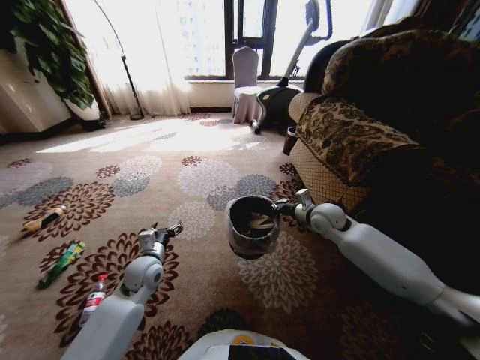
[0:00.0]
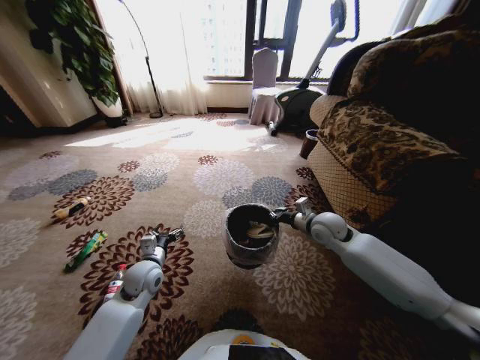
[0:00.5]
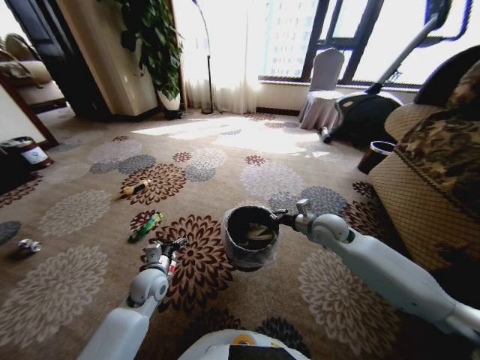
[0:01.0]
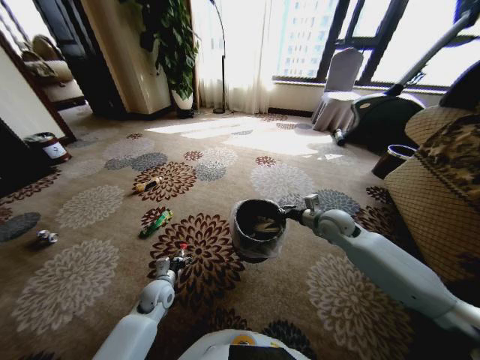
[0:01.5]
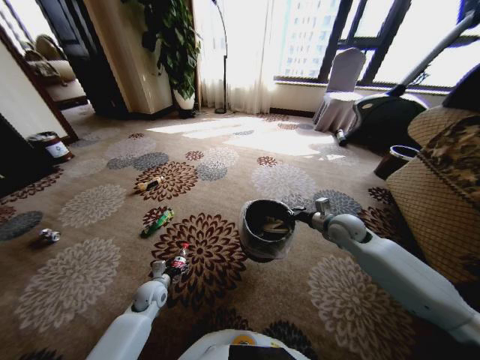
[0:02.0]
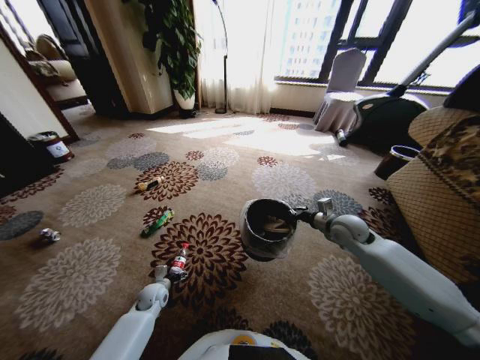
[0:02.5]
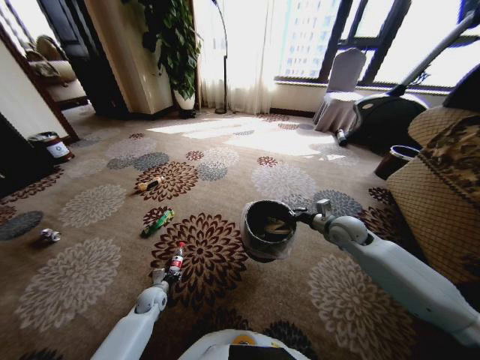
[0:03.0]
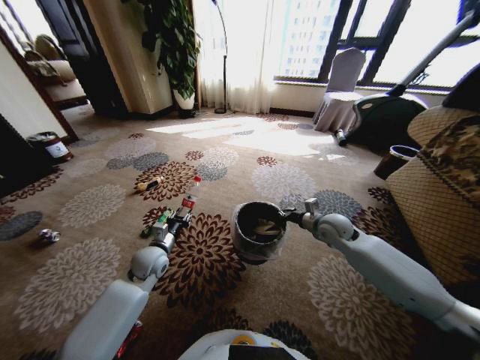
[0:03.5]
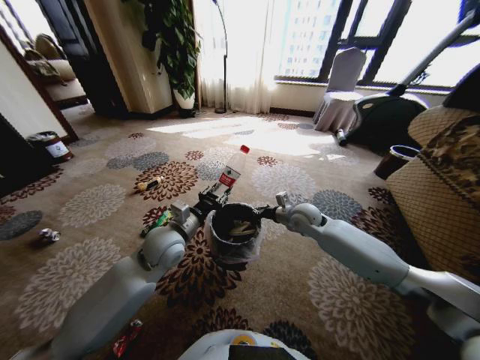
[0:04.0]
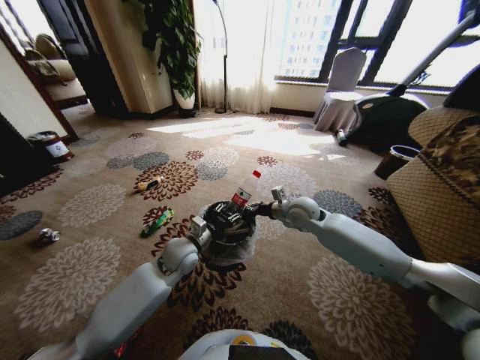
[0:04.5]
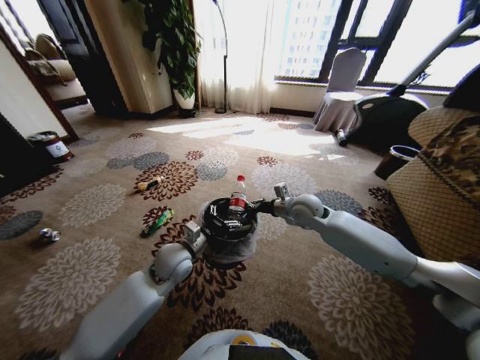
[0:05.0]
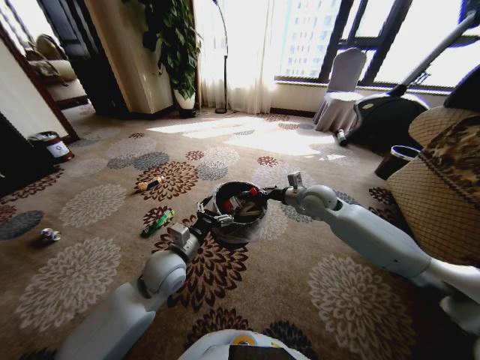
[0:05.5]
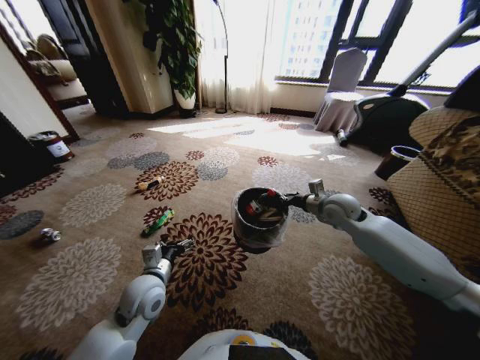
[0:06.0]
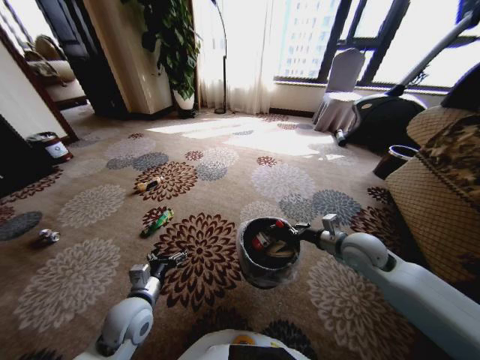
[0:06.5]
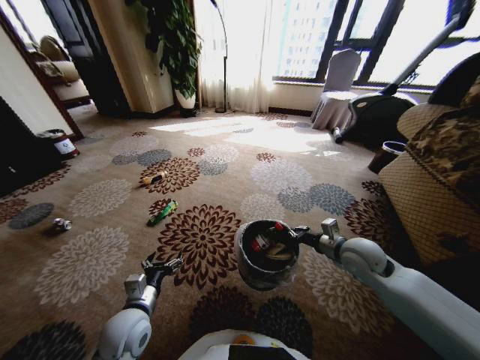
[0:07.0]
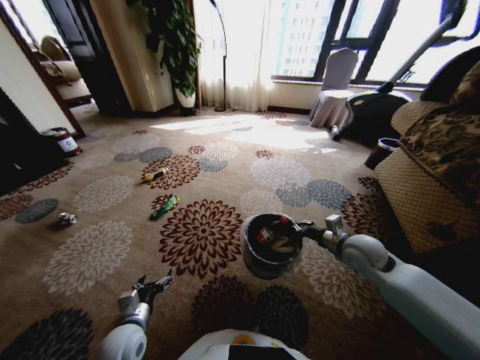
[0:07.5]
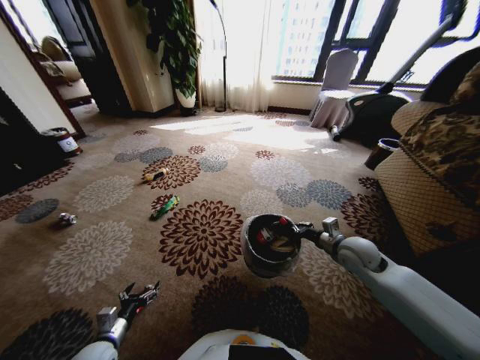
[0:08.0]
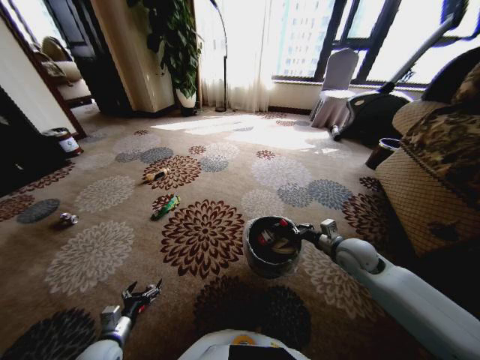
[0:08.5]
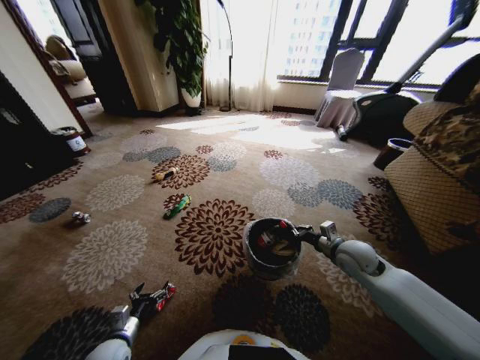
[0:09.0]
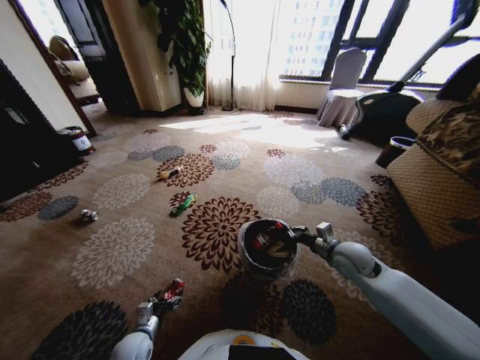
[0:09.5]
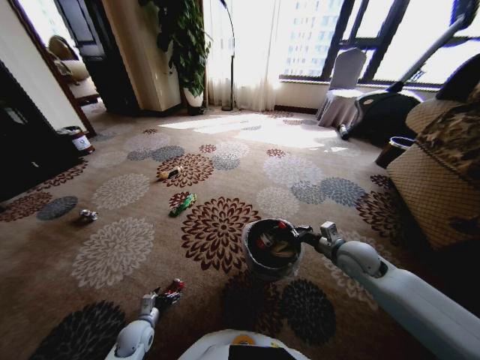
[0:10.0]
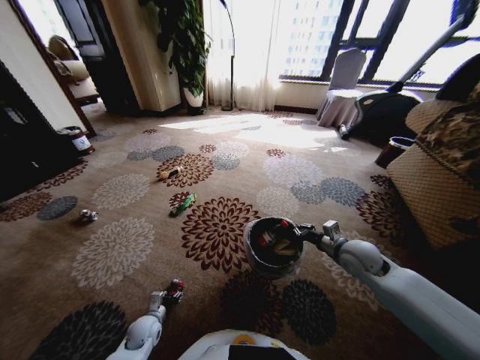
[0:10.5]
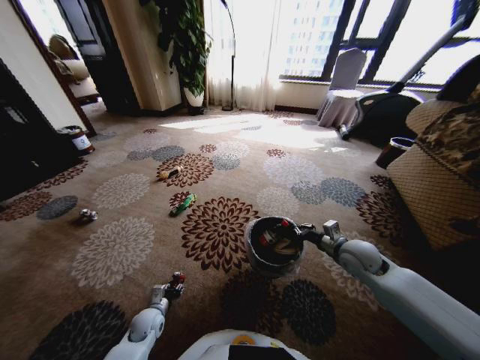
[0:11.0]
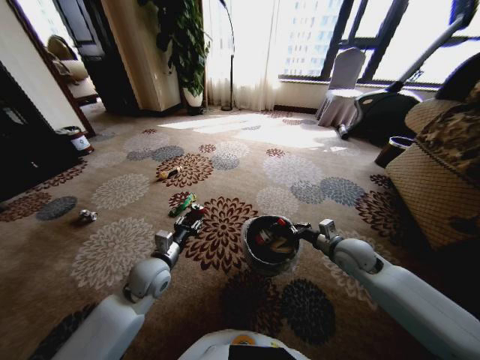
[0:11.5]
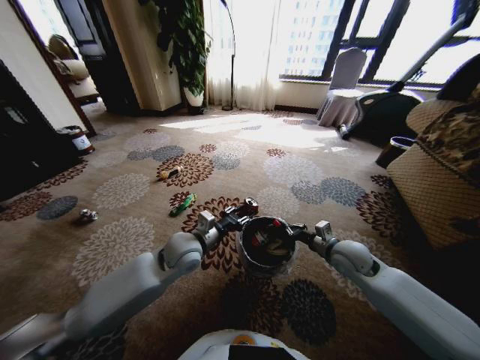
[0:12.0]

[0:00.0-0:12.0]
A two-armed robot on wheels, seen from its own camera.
Task of the whole recording: Pick up the trash from the ground and place it into the trash bin.
0:00.0 to 0:02.0: The left gripper shifts about 15 cm downward. Meanwhile the right gripper moves to the right, about 5 cm.
0:02.0 to 0:04.0: The right gripper is displaced to the left by roughly 10 cm. Meanwhile the left gripper travels upward by roughly 25 cm, and closes up.
0:04.0 to 0:06.0: The right gripper travels to the right and upward by about 10 cm. Meanwhile the left gripper shifts some 10 cm downward and backward, and opens.
0:06.0 to 0:08.0: The right gripper travels backward and downward by some 15 cm; the left gripper travels downward, to the left and backward by roughly 25 cm.
0:08.0 to 0:10.0: The left gripper heads downward and forward, covering approximately 10 cm.
0:10.0 to 0:12.0: The left gripper shifts about 35 cm upward, to the right and forward, and closes its fingers.

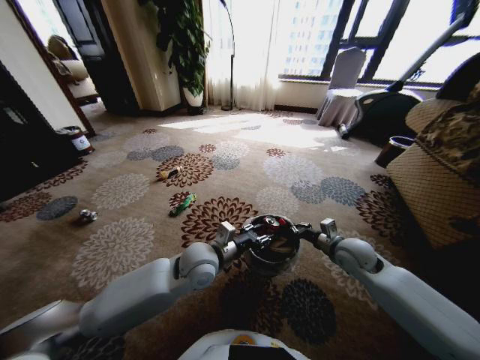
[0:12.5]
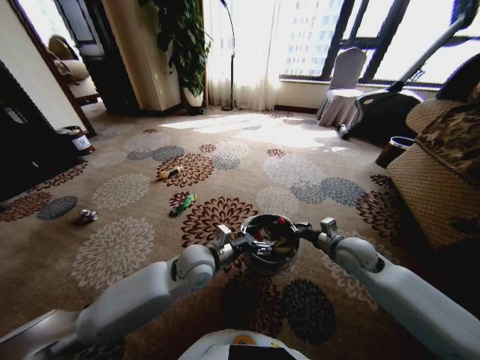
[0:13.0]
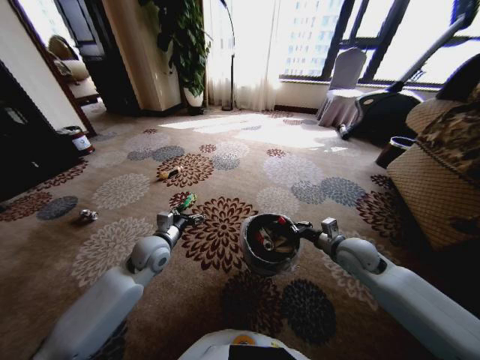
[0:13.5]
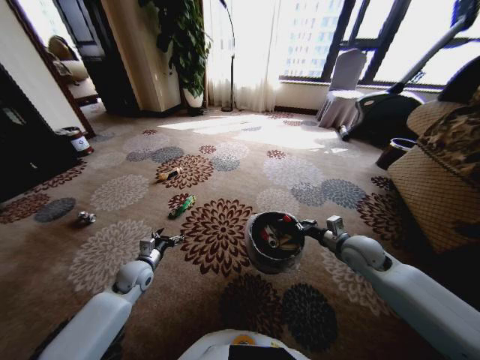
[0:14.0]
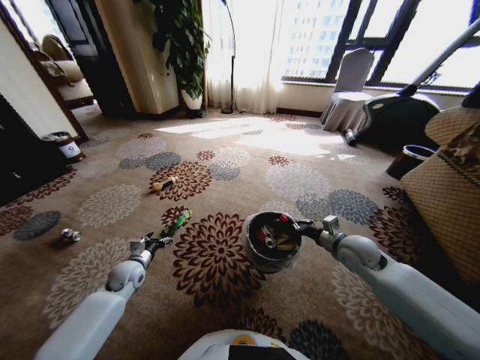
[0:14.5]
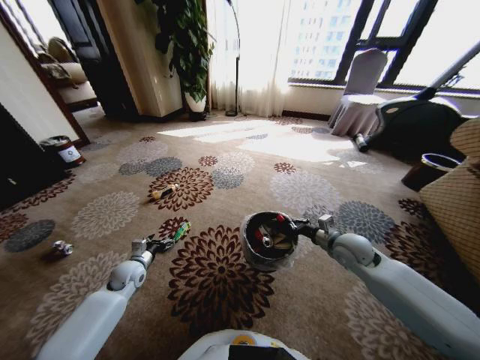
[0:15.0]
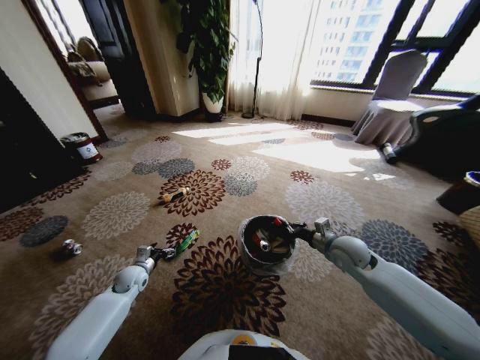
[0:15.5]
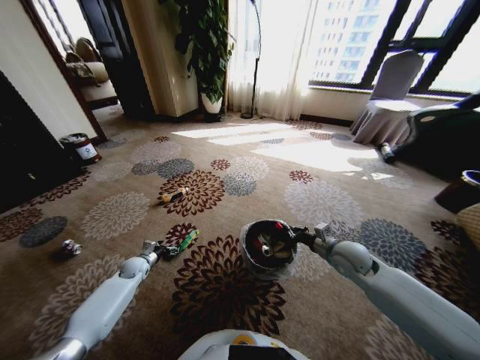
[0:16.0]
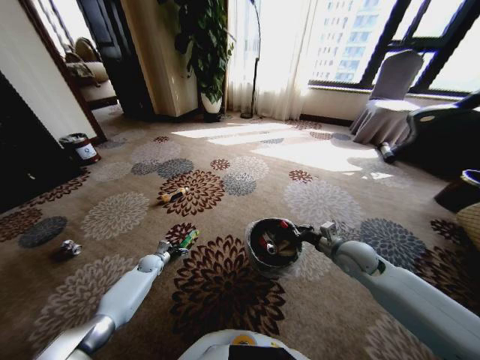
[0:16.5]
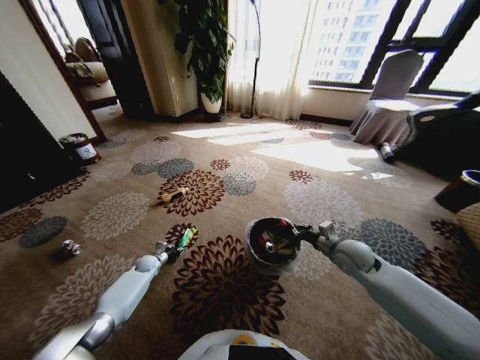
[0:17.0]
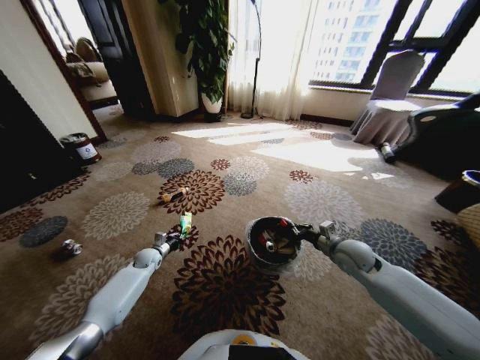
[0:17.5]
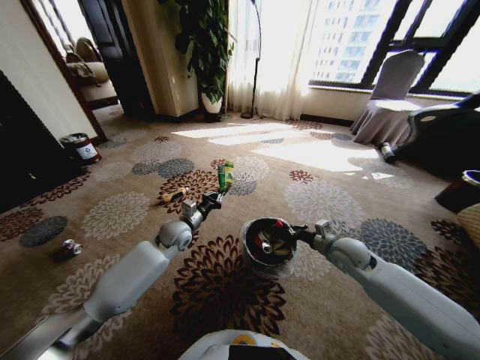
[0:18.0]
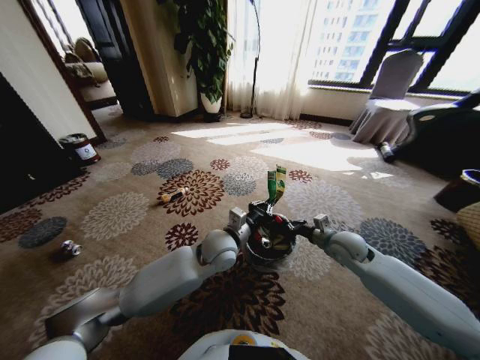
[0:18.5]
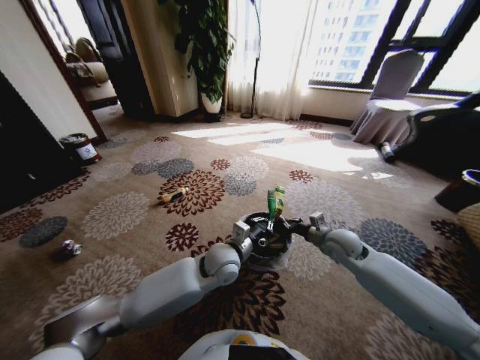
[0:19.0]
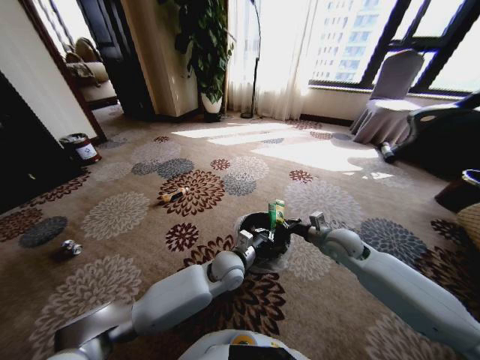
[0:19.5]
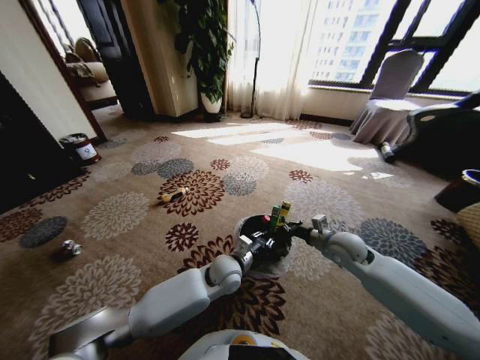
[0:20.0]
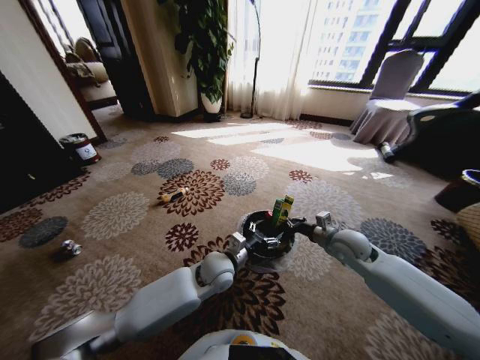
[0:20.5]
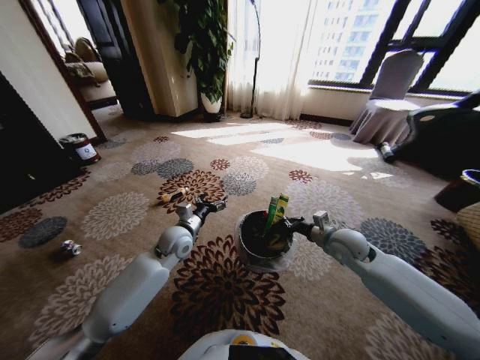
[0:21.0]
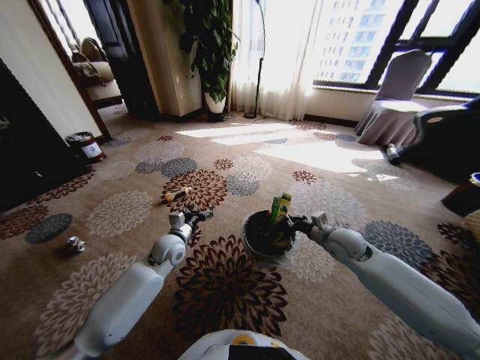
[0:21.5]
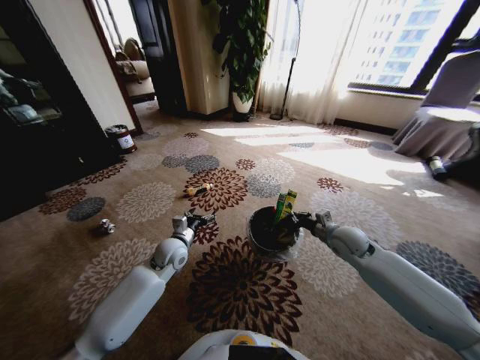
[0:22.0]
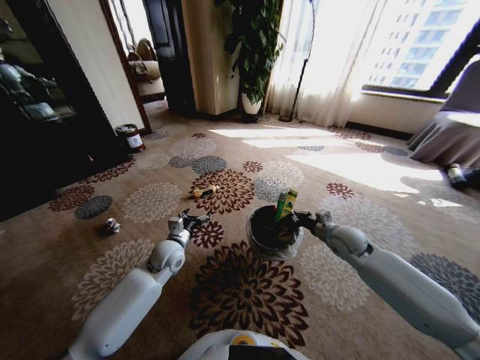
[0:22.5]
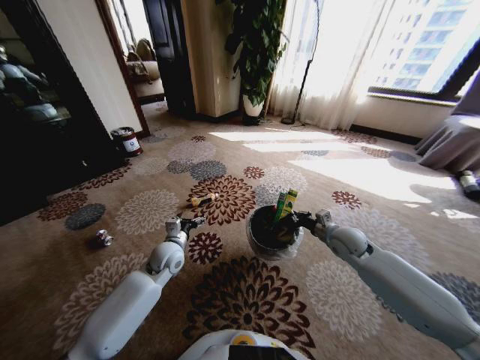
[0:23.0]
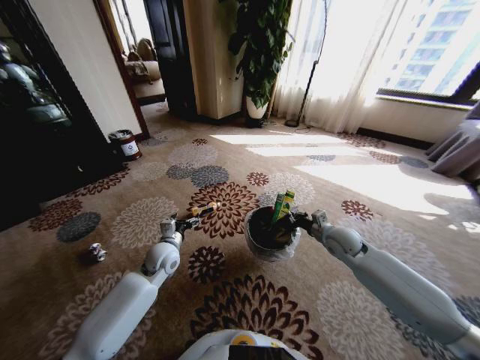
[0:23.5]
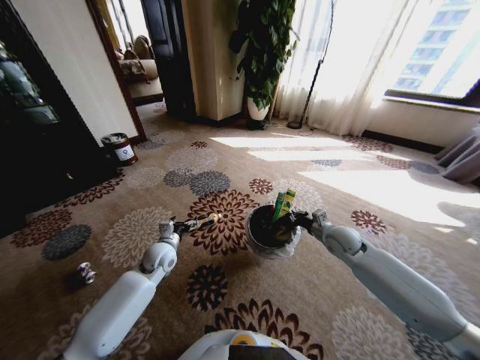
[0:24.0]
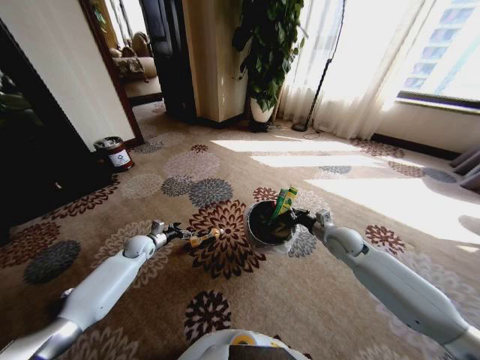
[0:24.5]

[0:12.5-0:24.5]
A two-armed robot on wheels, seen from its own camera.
Task of the whole recording: Pick up the trash from the ground and place it into the trash bin.
0:12.5 to 0:14.5: The left gripper moves to the left and downward, approximately 30 cm, and opens.
0:14.5 to 0:16.5: The left gripper shifts approximately 15 cm downward and forward.
0:16.5 to 0:18.5: The left gripper travels to the right and upward by approximately 40 cm, and closes.
0:18.5 to 0:20.5: The left gripper goes some 5 cm downward, and opens its fingers.
0:20.5 to 0:22.5: The left gripper is displaced to the left by about 15 cm.
0:22.5 to 0:24.5: The left gripper moves to the left, downward and forward, roughly 20 cm.

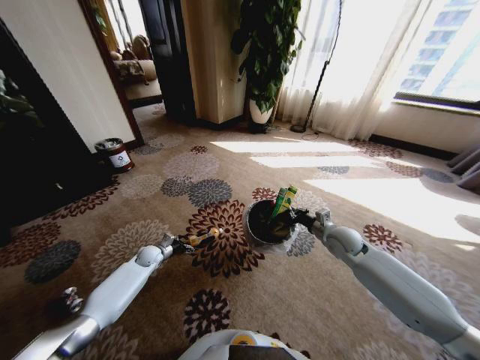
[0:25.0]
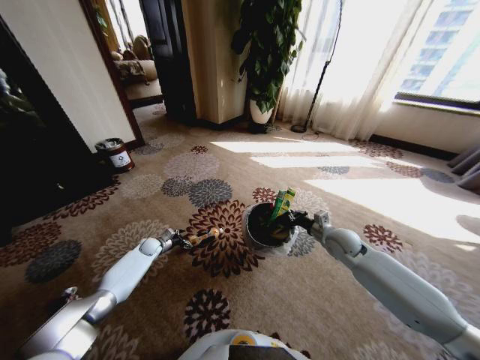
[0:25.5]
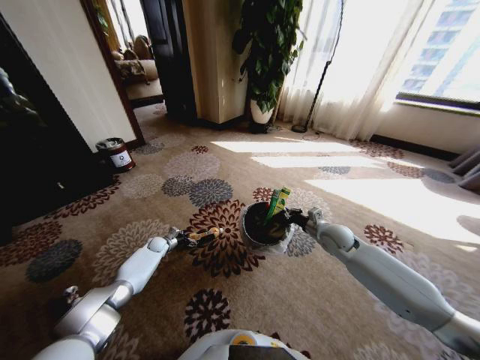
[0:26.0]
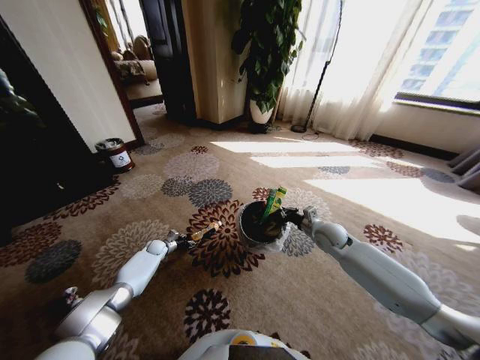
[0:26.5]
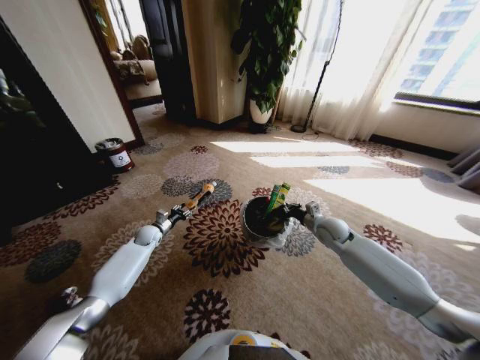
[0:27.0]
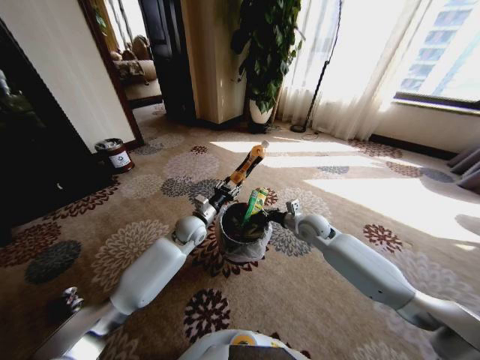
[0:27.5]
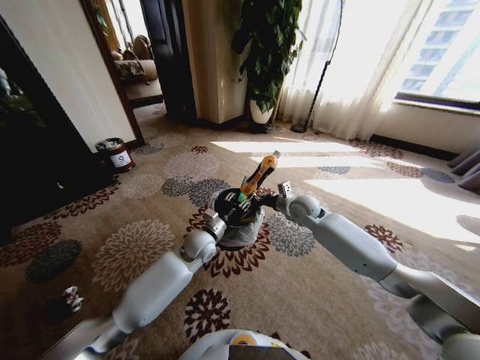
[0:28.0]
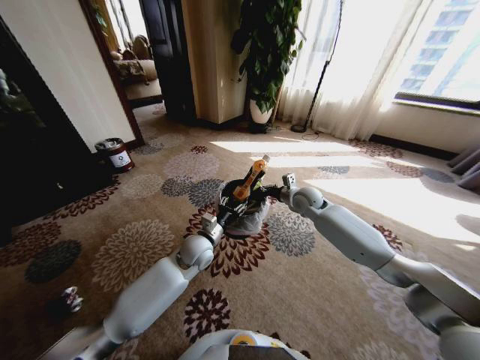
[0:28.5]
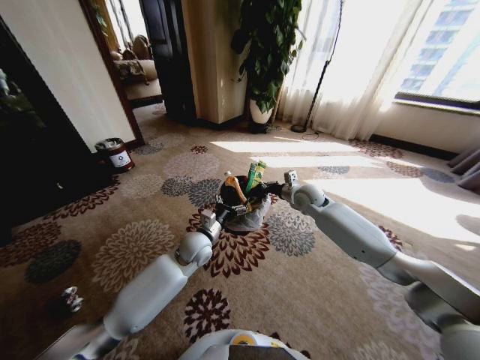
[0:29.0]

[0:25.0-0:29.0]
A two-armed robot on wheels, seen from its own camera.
Task of the whole recording: Pick up the trash from the ground and place it into the trash bin.
0:25.0 to 0:27.0: The left gripper goes approximately 5 cm forward, and closes up.
0:27.0 to 0:29.0: The left gripper goes approximately 30 cm to the right, upward and backward, and opens up. Meanwhile the right gripper shifts some 15 cm upward, to the left and forward.
